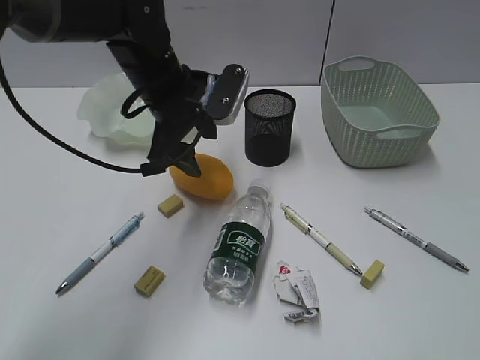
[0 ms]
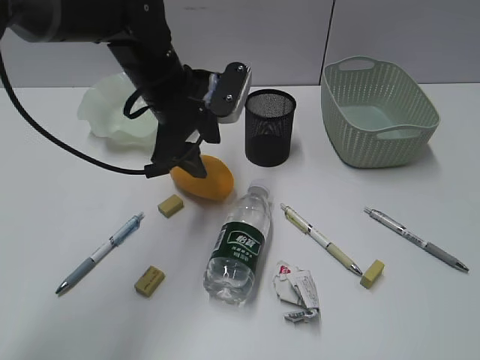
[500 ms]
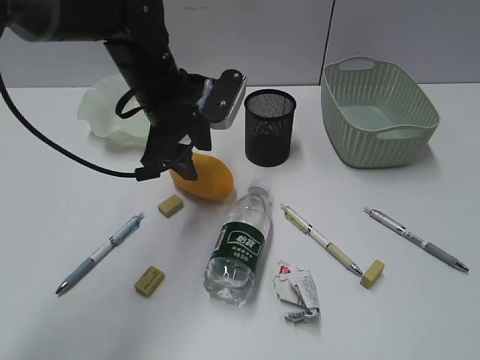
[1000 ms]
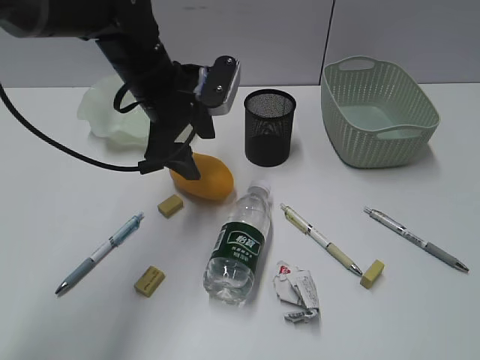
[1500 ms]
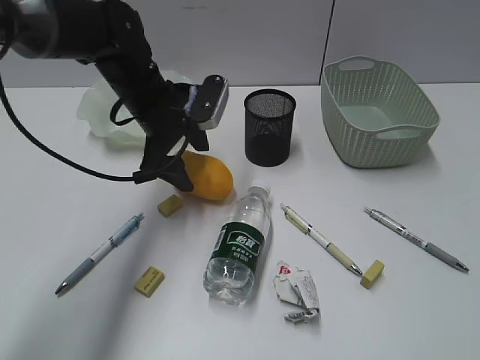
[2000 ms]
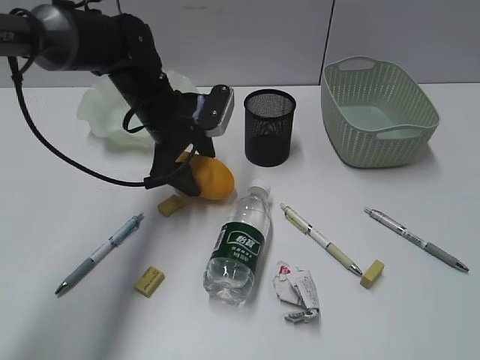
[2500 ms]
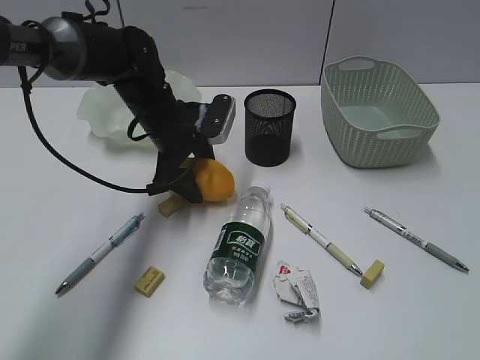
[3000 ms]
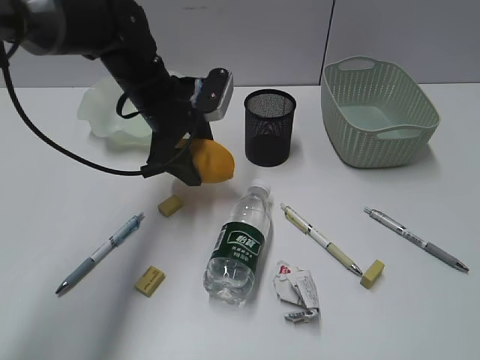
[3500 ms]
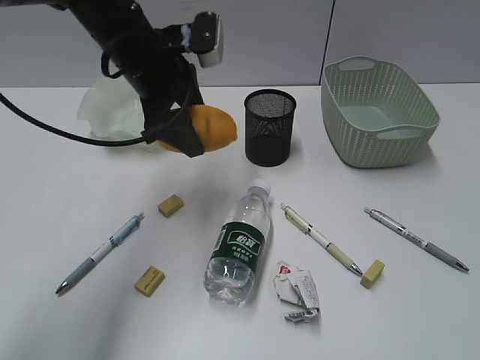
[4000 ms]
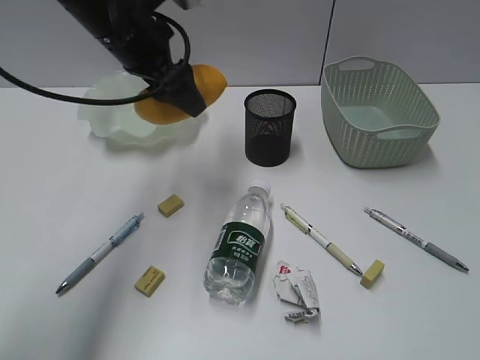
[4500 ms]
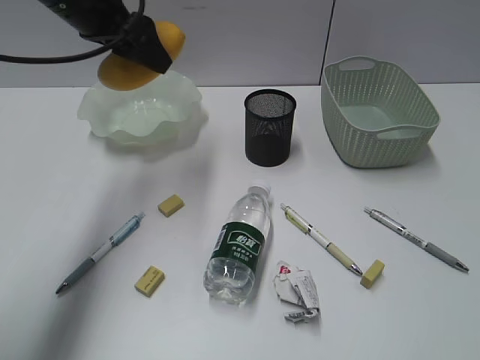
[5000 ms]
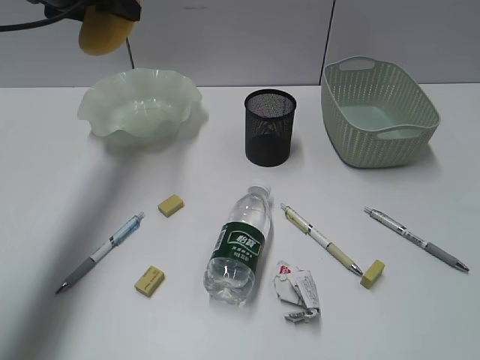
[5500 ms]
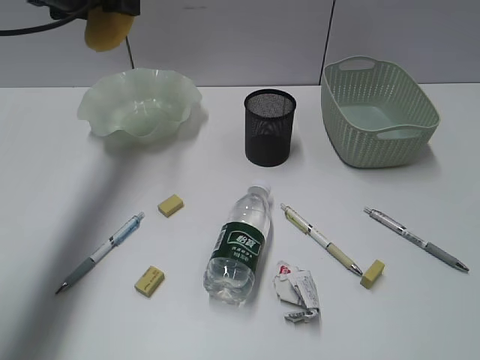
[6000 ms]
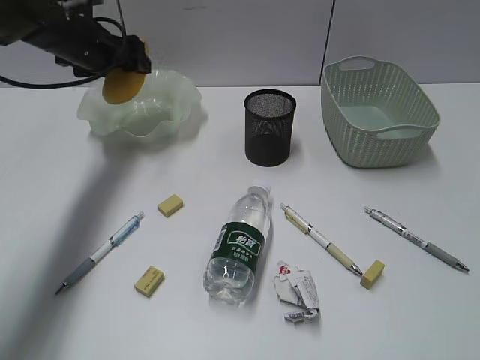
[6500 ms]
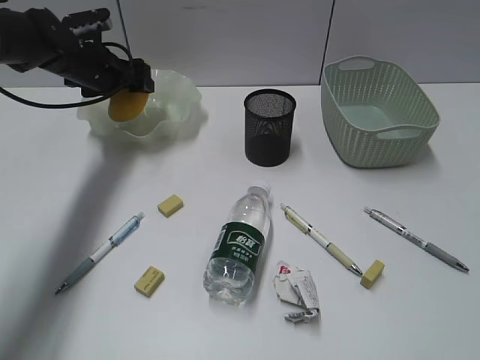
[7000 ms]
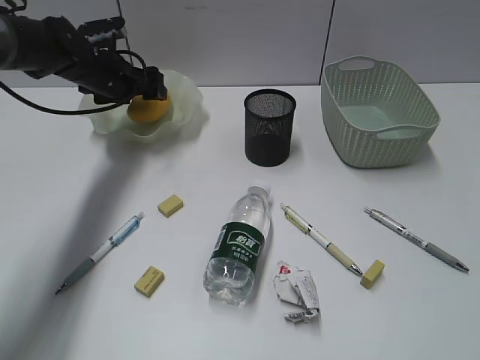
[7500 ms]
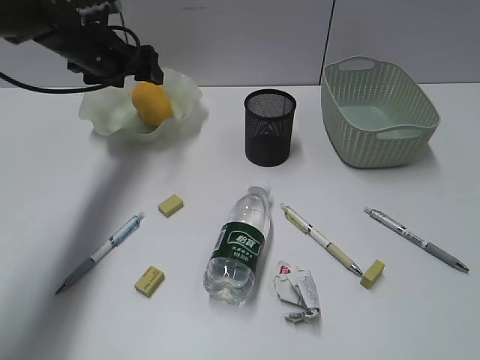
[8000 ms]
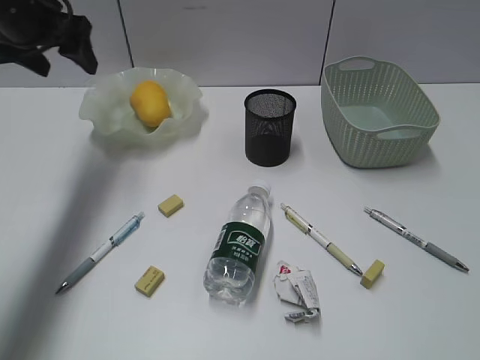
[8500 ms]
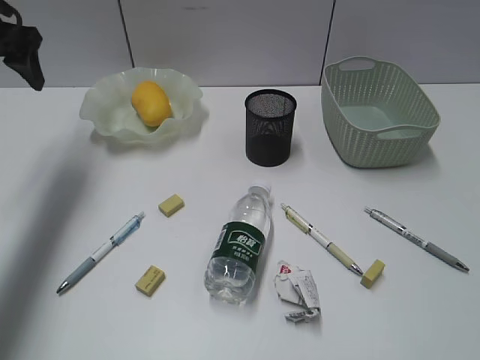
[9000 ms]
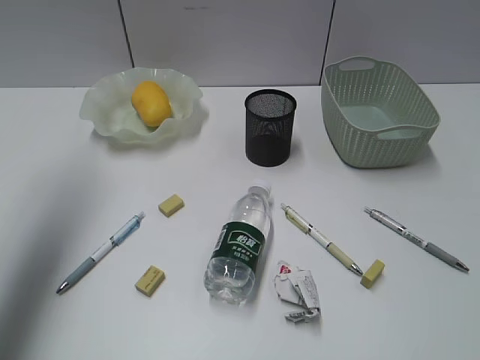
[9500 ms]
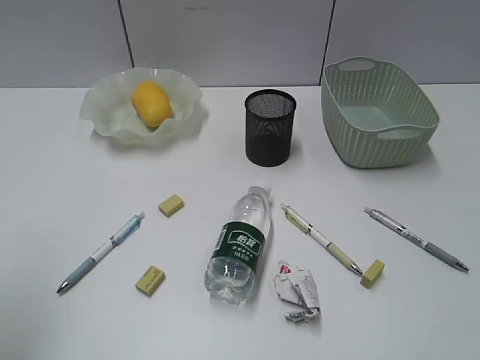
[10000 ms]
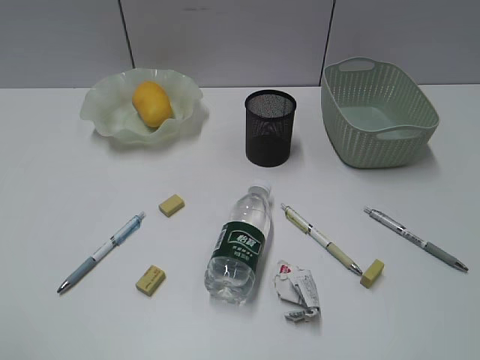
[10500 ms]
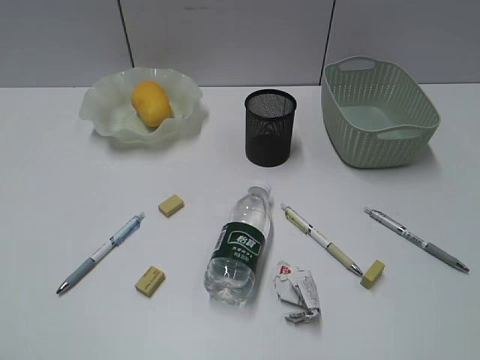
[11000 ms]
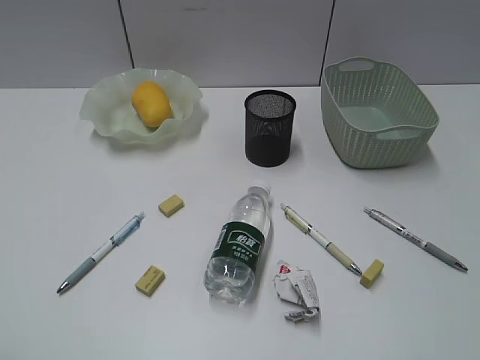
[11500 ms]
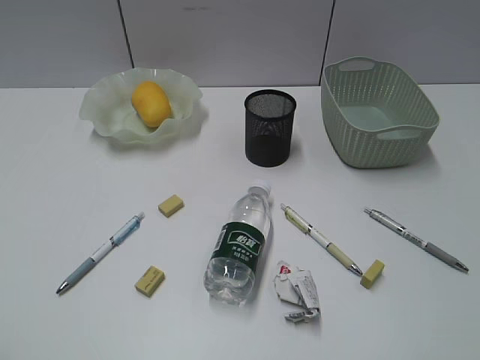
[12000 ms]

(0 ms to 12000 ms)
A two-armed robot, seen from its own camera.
Step, 0 ms - 2500 ms: Grasp the mango with left gripper.
Step, 3000 ms - 8000 ms: Place the mango in the plate with left gripper.
0 ms - 2000 ms: The grippers move only a little.
2000 ms - 4000 ms: The left gripper moves upward, approximately 5 cm.
4000 ms - 6000 ms: The left gripper moves to the left, forward and upward, roughly 15 cm.
6000 ms - 8000 ms: The left gripper is displaced downward by roughly 10 cm.
8000 ms - 10000 ms: The left gripper travels backward and upward by approximately 40 cm.

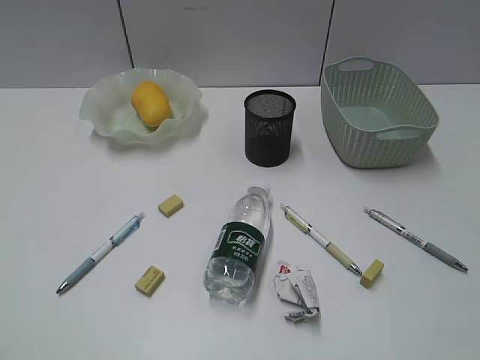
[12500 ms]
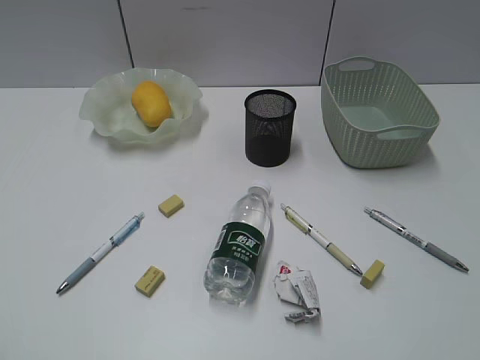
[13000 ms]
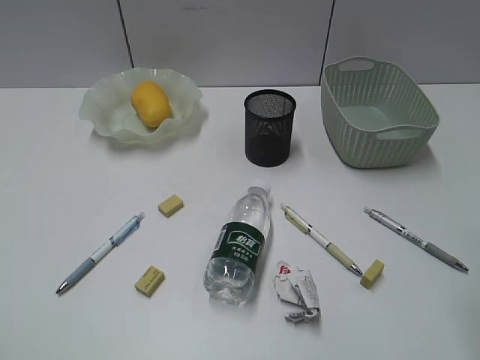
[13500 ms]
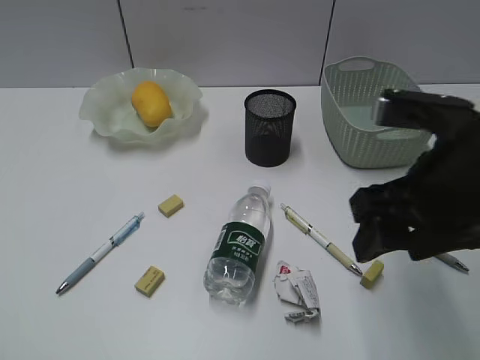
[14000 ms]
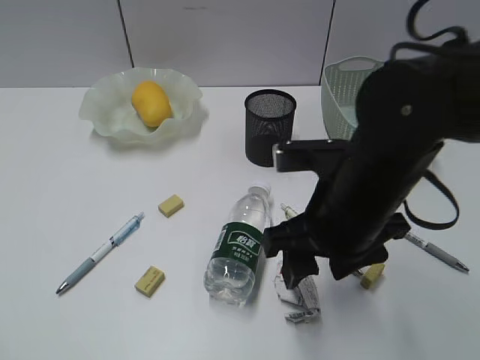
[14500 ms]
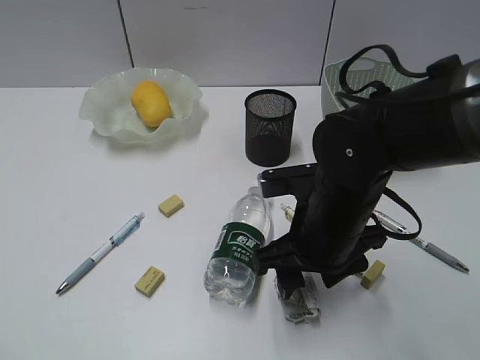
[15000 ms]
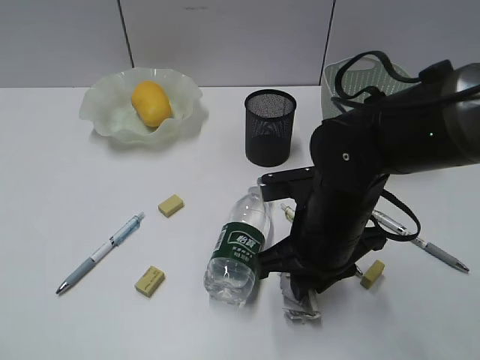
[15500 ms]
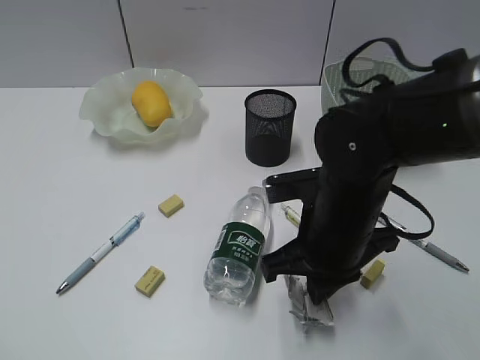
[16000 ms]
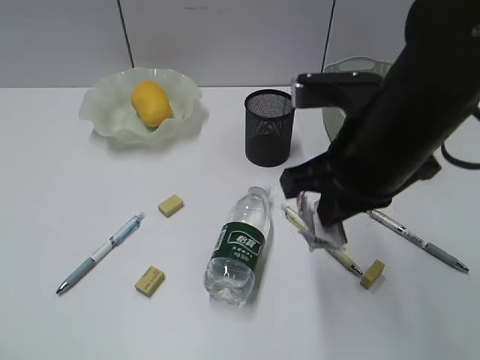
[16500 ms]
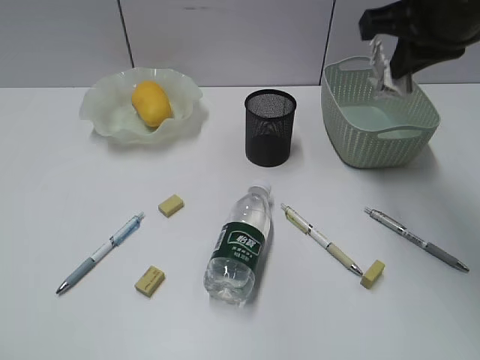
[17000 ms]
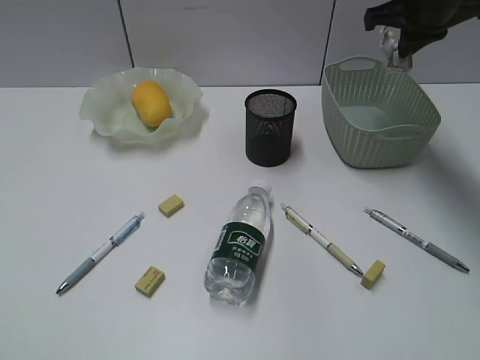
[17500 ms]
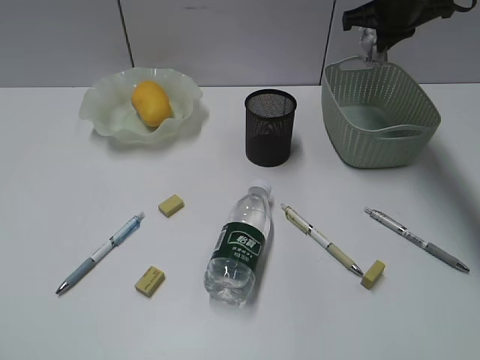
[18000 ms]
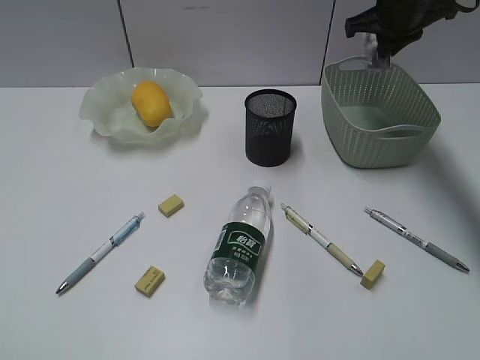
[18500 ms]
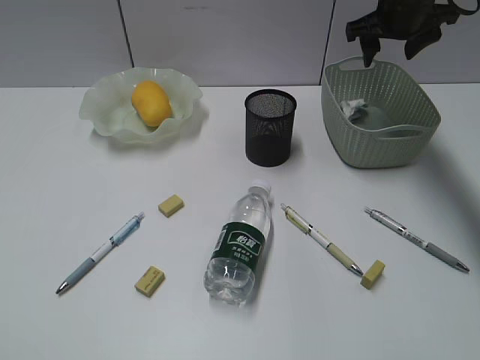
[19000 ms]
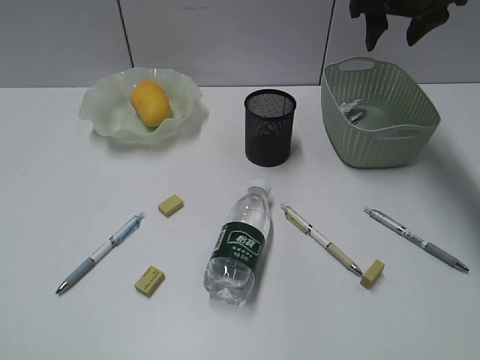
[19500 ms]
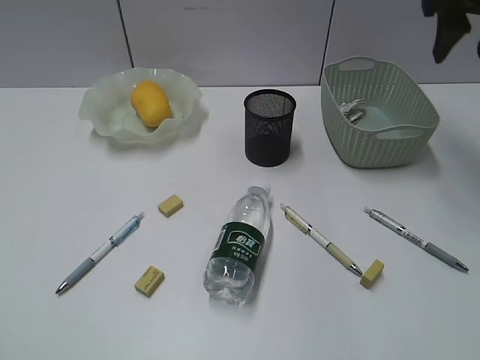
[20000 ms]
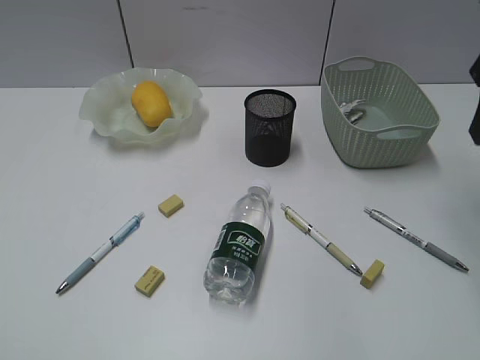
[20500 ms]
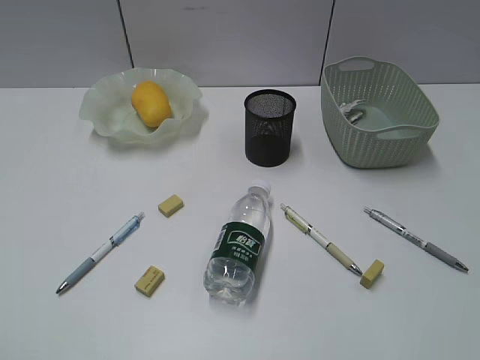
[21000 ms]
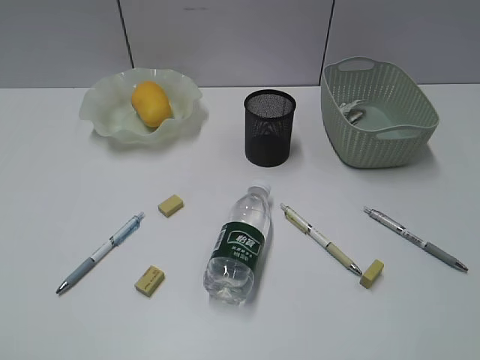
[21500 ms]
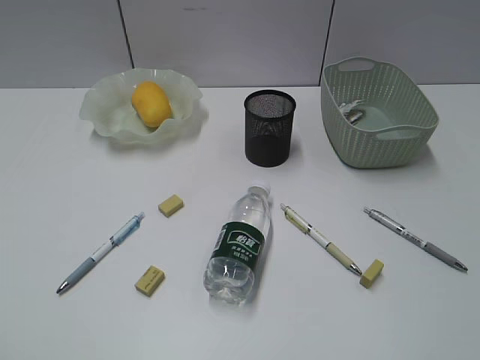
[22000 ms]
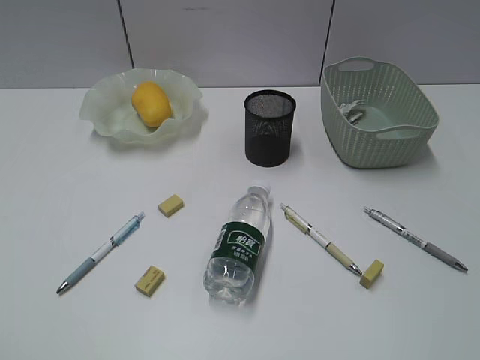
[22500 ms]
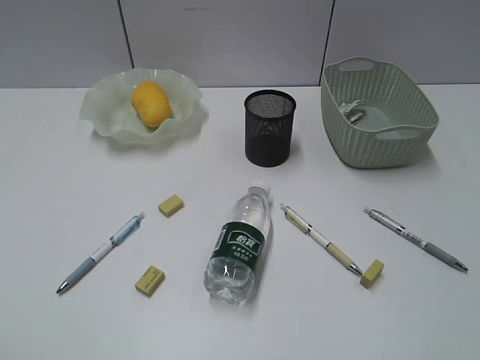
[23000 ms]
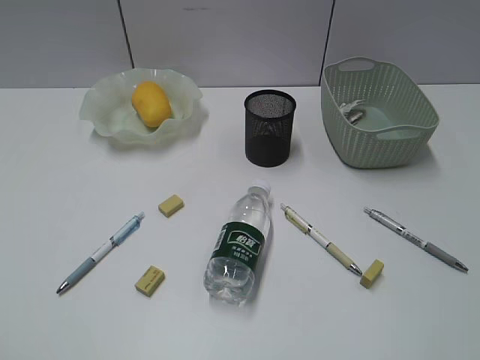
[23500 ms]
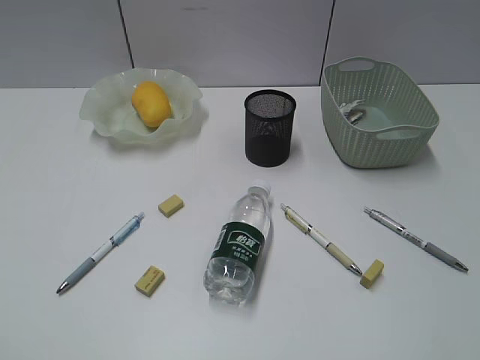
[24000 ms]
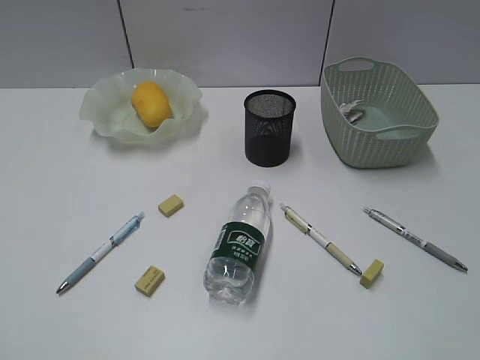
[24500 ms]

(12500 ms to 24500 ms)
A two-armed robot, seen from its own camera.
Step, 12500 ms - 15500 ms: Grasp the waste paper with right gripper.
Step, 16000 ms - 18500 ms: Place the waste paper in the basket with right gripper.
12500 ms - 14500 ms: The right gripper goes approximately 30 cm forward, to the left and downward.
14500 ms - 16500 ms: The right gripper closes up.
16500 ms - 18500 ms: The right gripper moves forward, about 30 cm.
18500 ms - 20500 ms: The right gripper goes approximately 20 cm backward, and opens its fingers.
20500 ms - 22500 ms: The right gripper moves backward, some 35 cm.

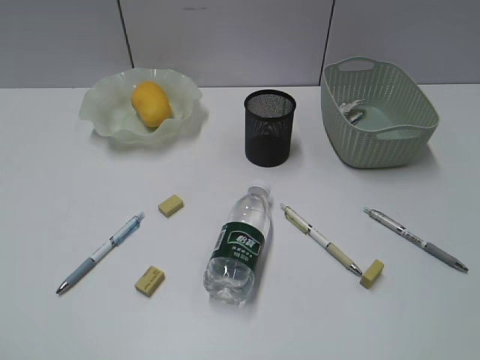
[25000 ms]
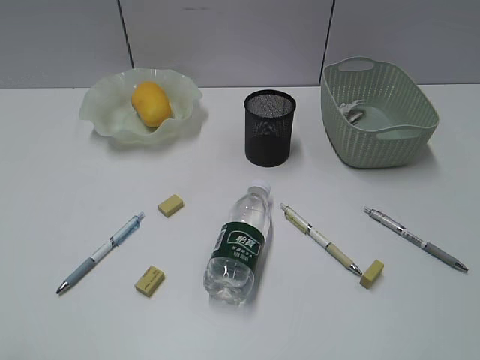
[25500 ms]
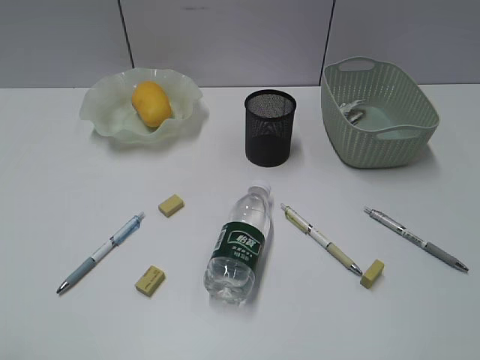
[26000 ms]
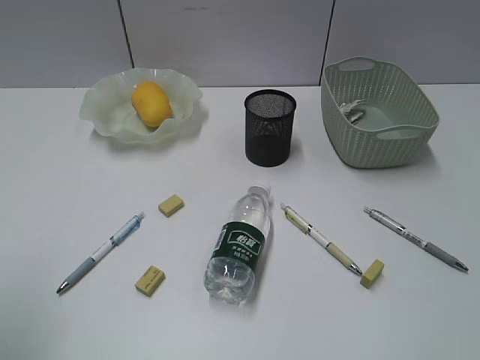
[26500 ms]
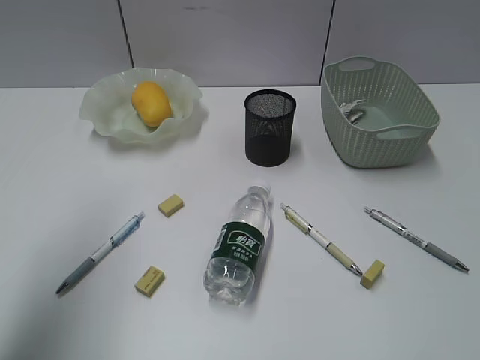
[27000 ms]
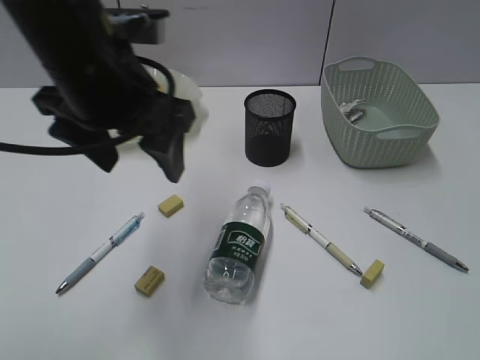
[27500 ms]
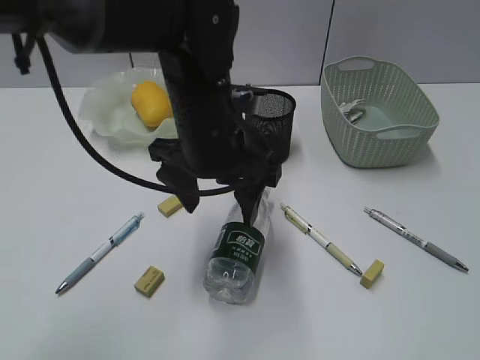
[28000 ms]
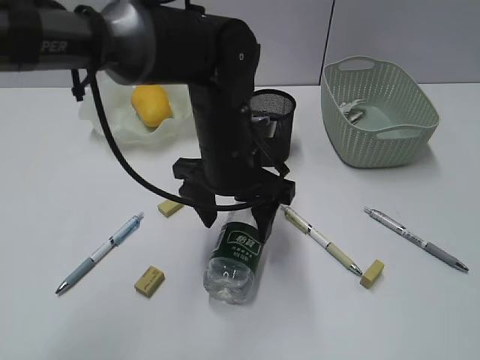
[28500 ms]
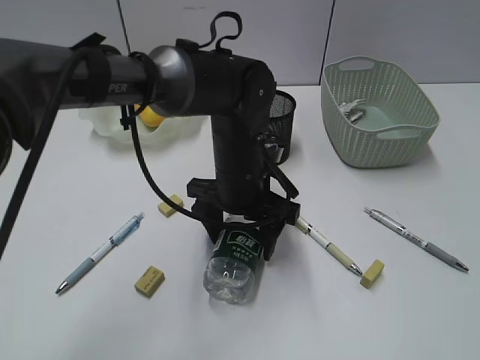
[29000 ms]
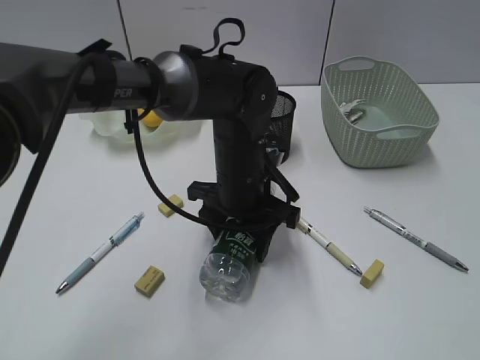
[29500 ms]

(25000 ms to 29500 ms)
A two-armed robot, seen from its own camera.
25000 ms - 27000 ms: The left gripper travels forward by some 20 cm, and opens its fingers.
27000 ms - 29500 ms: The left gripper travels to the right, downward and forward by roughly 35 cm.
